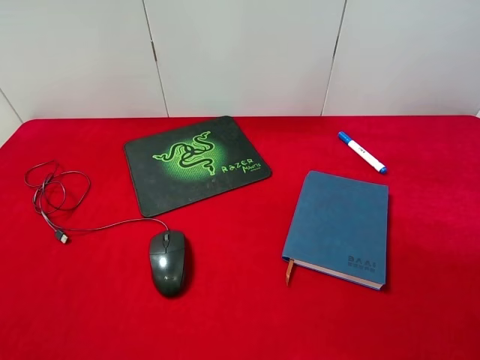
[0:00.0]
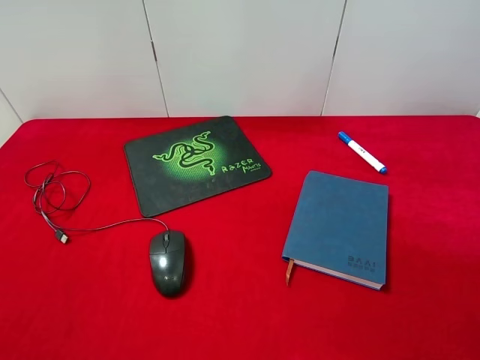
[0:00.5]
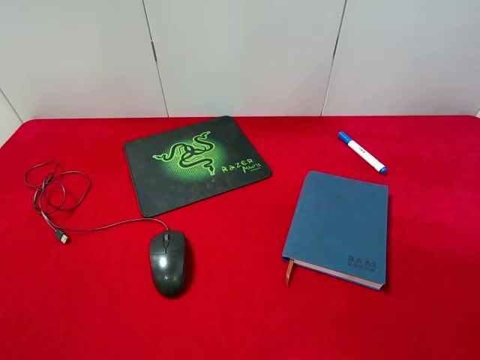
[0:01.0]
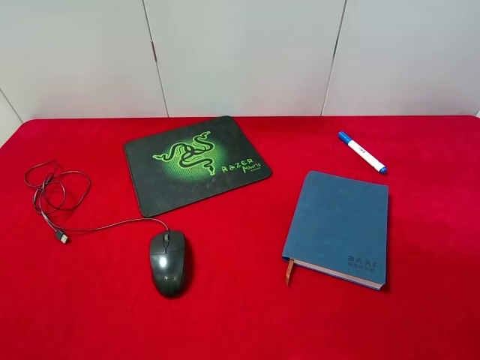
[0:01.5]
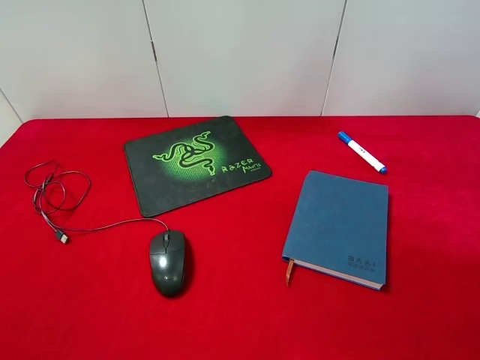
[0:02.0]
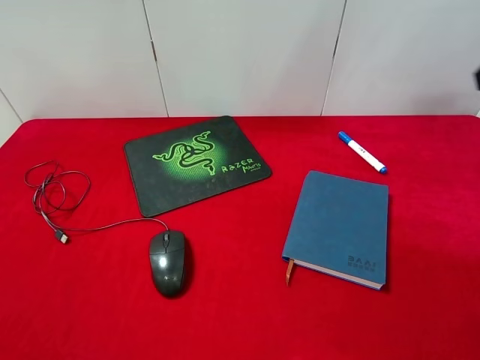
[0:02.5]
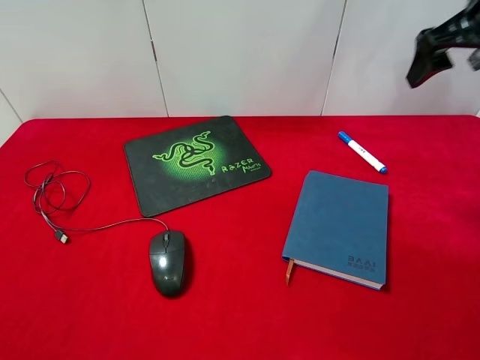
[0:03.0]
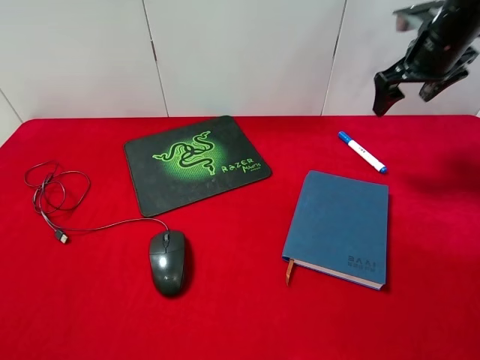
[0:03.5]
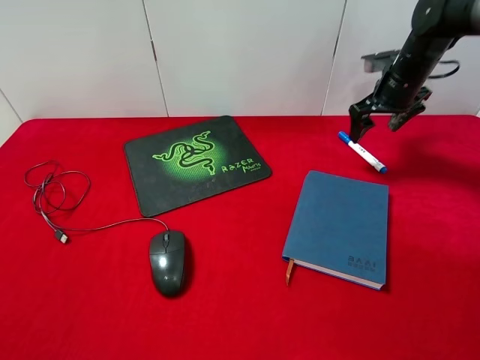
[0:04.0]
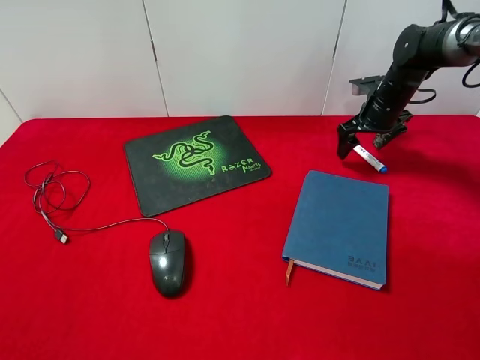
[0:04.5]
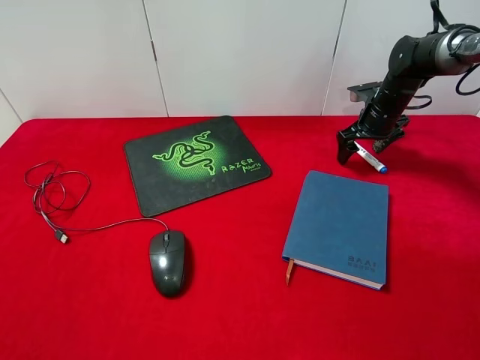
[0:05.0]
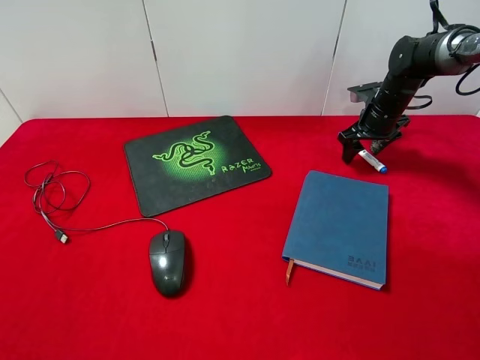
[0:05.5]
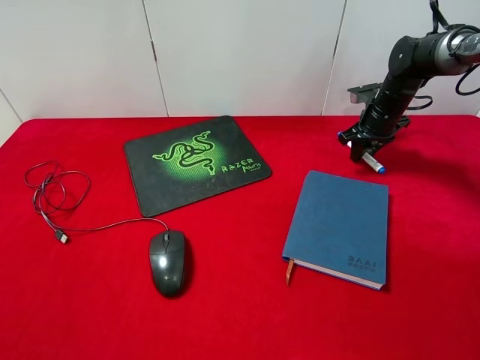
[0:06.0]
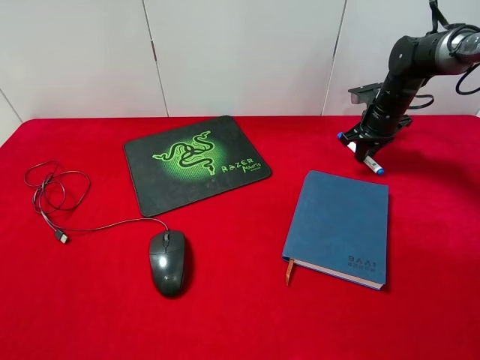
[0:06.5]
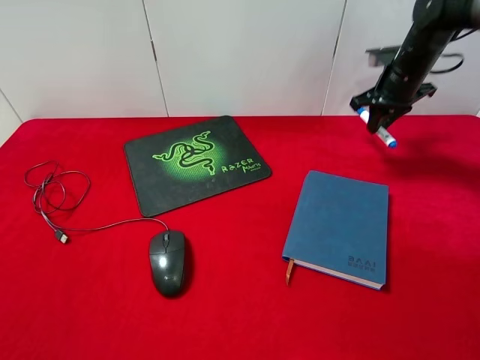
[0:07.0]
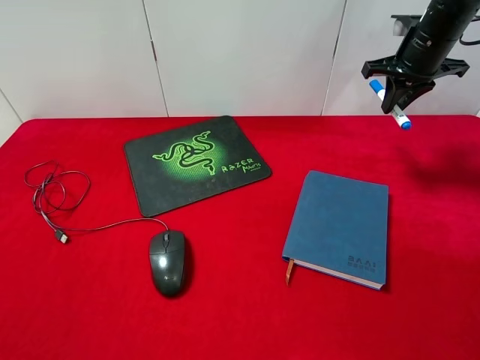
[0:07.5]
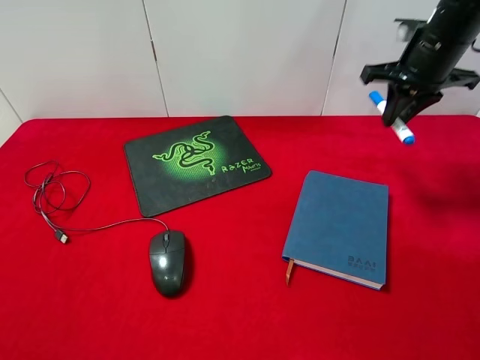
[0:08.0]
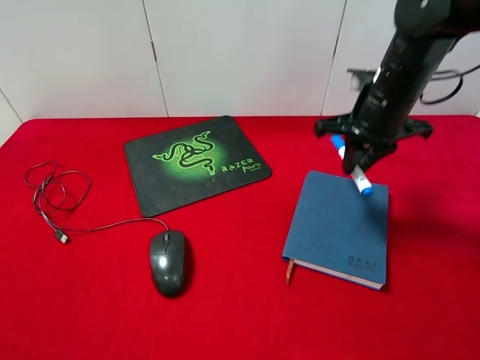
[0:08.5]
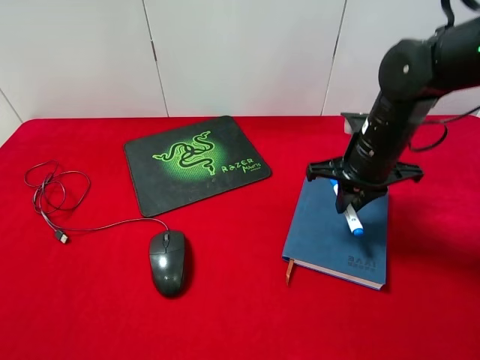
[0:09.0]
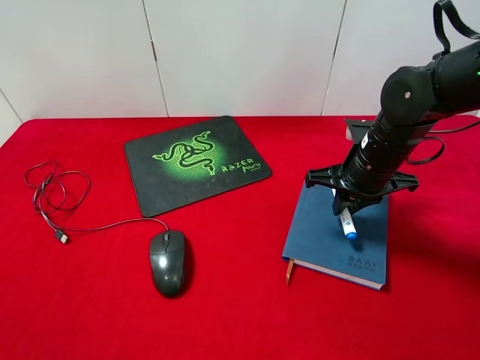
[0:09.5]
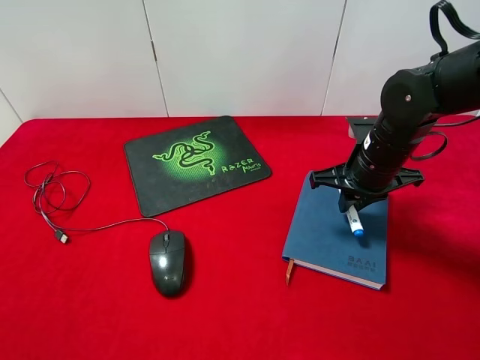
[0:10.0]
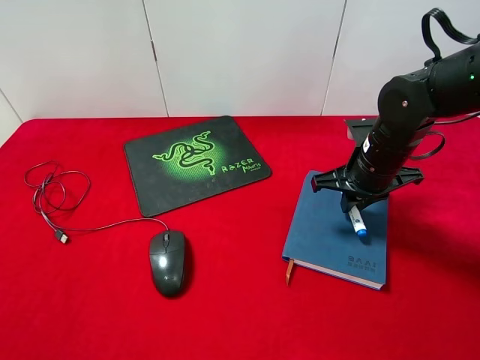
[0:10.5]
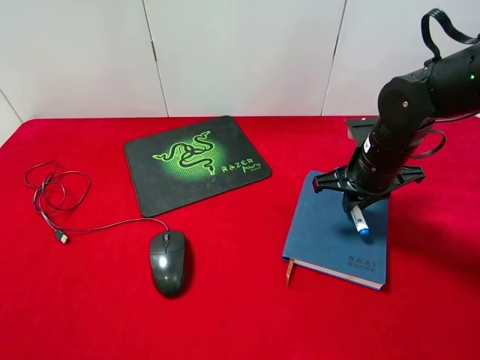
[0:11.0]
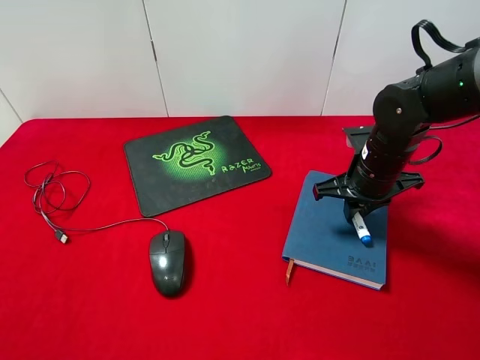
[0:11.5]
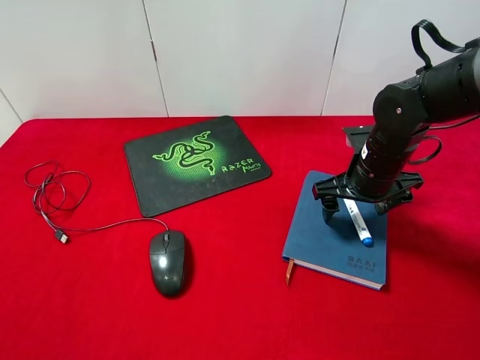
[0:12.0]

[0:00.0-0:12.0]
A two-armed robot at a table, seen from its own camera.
Step, 0:00.0 to 0:07.0: Pick up the marker pen with right gripper.
0:02.0 to 0:04.0: The right gripper moves forward and downward, about 40 cm.
0:04.0 to 0:06.0: The right gripper is displaced downward by some 5 cm, and closes up.
0:06.0 to 0:08.0: The right gripper moves upward and backward, roughly 20 cm.
0:08.0 to 0:10.0: The right gripper shifts some 15 cm downward, backward and to the left.
0:10.0 to 0:12.0: The right gripper opens.

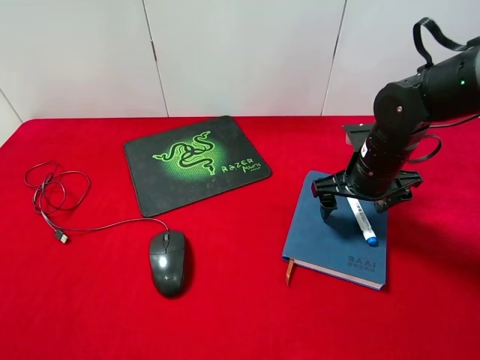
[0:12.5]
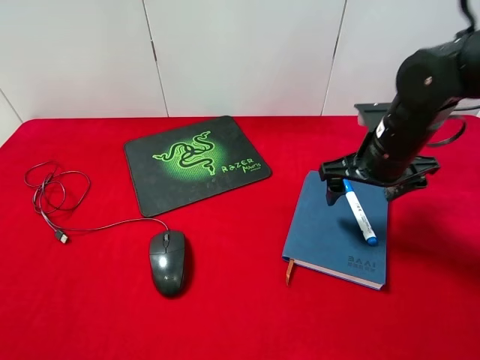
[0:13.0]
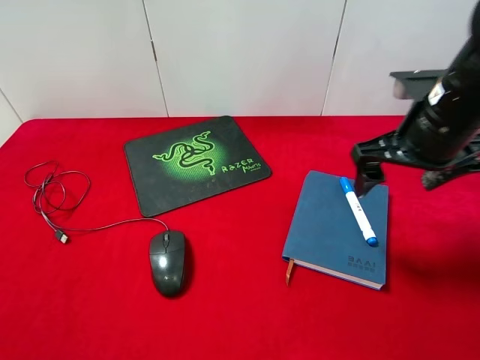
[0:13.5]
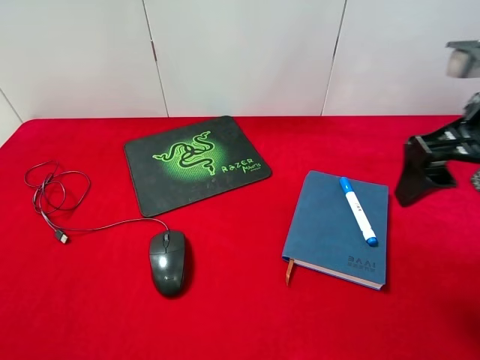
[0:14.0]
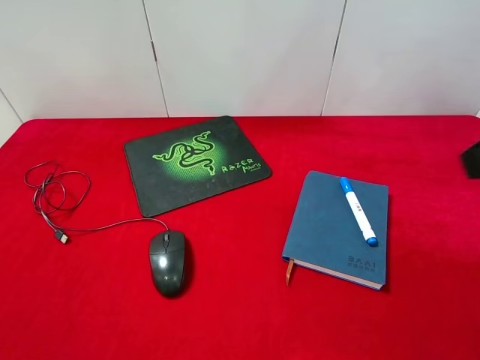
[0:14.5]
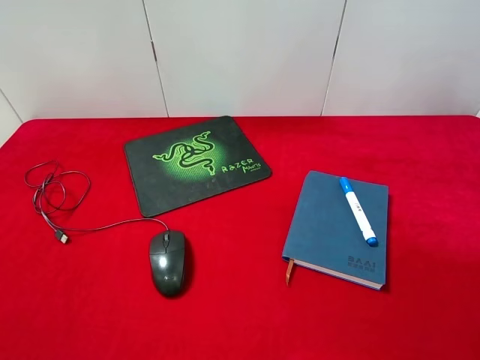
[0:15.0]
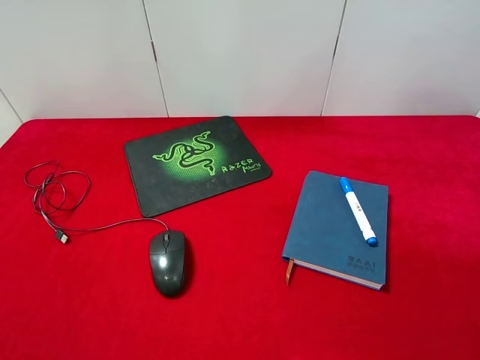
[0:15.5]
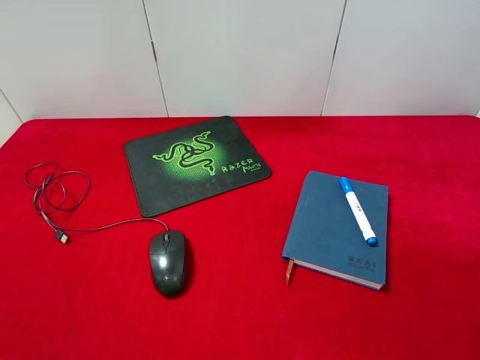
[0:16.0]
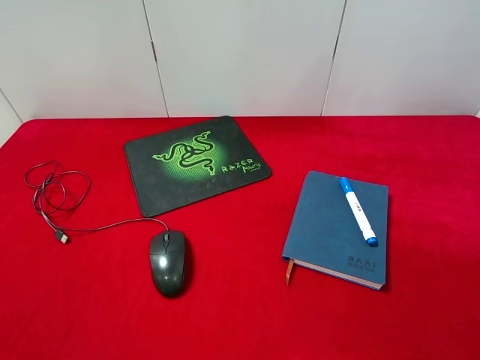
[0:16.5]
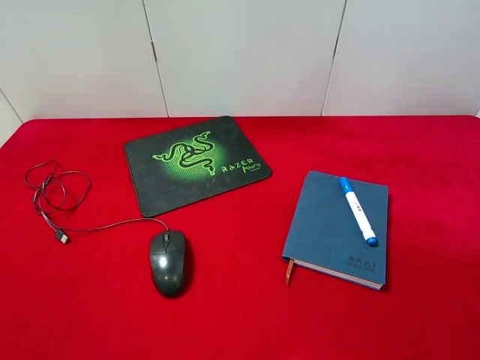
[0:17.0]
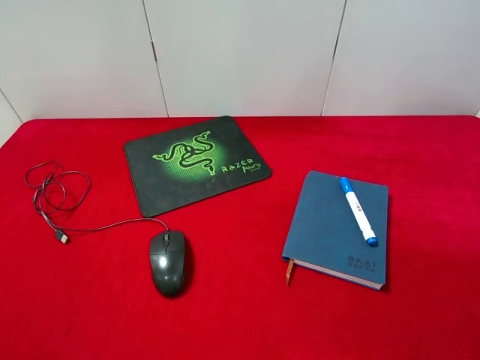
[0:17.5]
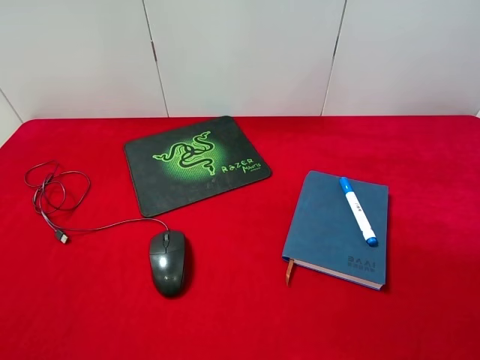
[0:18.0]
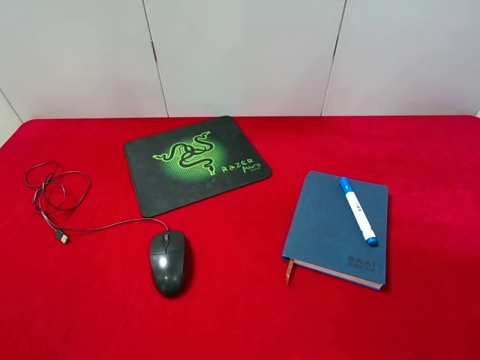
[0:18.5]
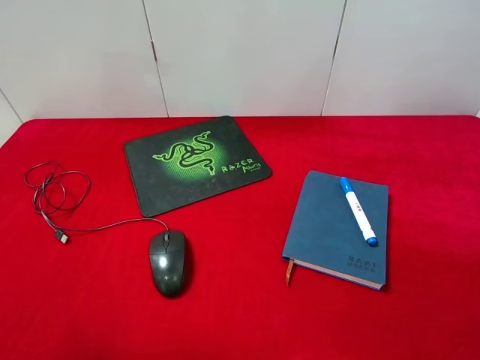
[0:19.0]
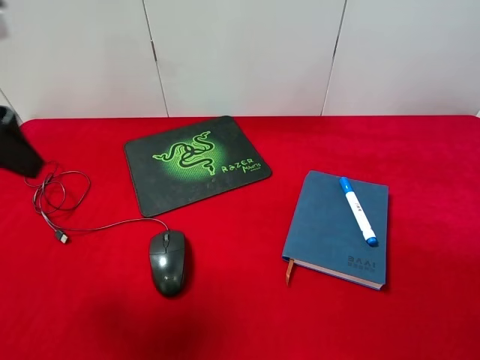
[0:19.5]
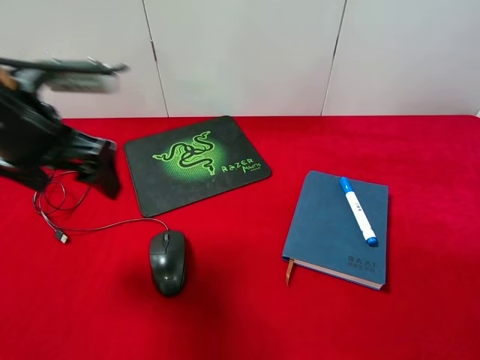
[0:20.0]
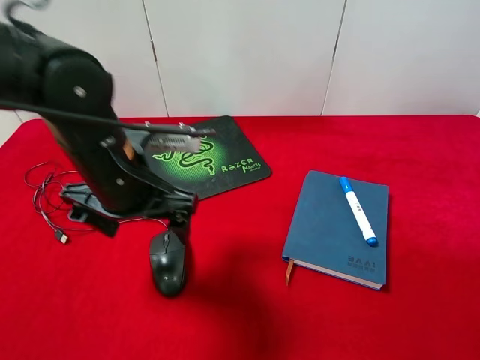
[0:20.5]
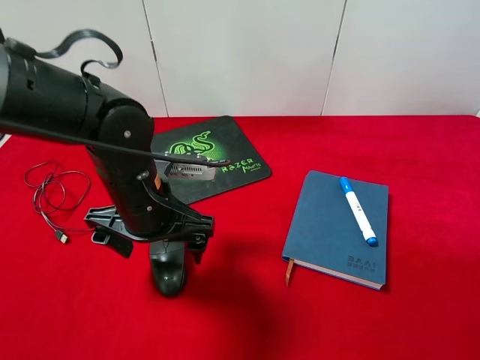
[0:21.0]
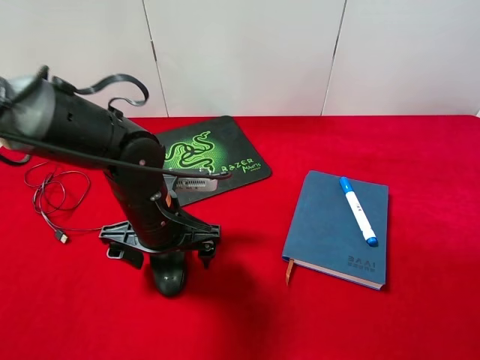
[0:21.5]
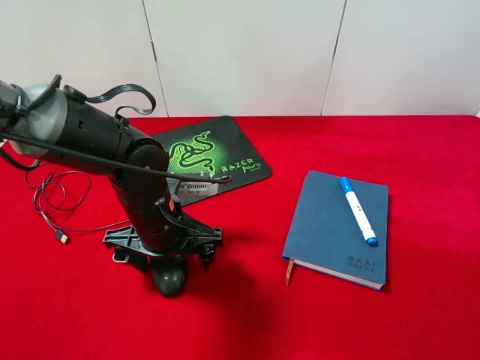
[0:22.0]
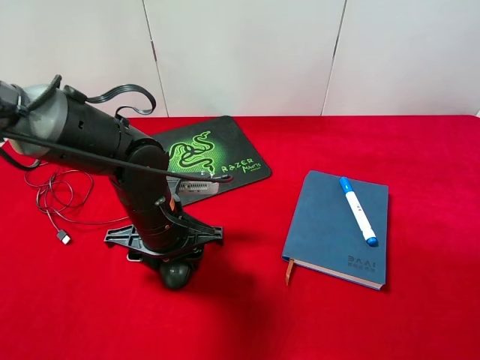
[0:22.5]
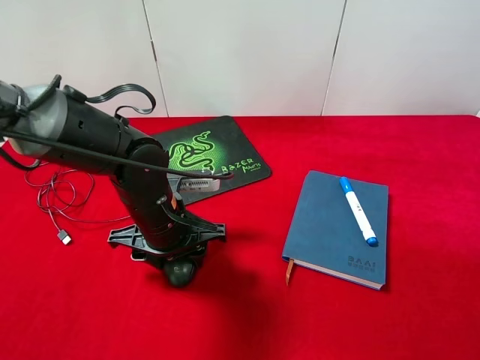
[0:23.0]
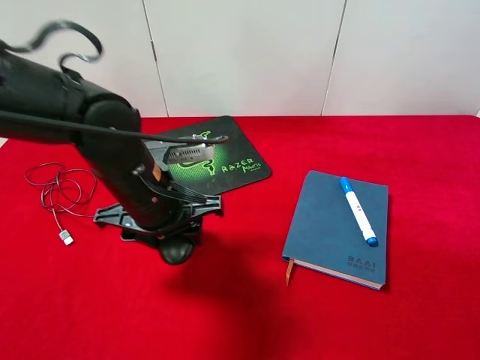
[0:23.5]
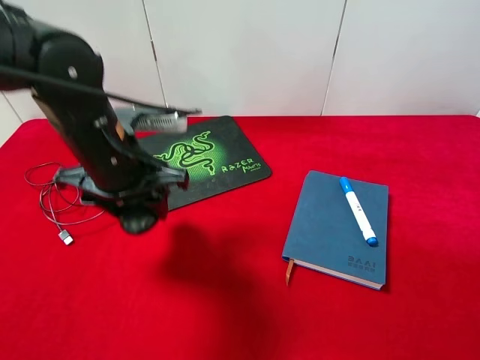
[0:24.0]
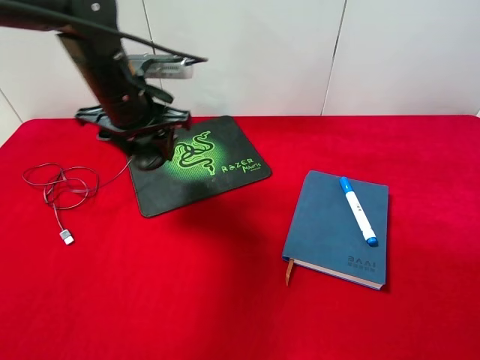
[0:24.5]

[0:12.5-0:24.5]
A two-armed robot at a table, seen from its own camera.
Step, 0:13.0 to 0:23.5: Pick up the mouse with left gripper.
0:12.5 to 0:14.5: The right gripper shifts approximately 30 cm upward and backward.
0:18.5 to 0:20.5: The left gripper is displaced to the right, forward and downward by approximately 30 cm.
0:20.5 to 0:22.5: The left gripper moves downward, approximately 10 cm, and closes its fingers.
0:22.5 to 0:24.5: The left gripper heads upward and forward, covering about 15 cm.

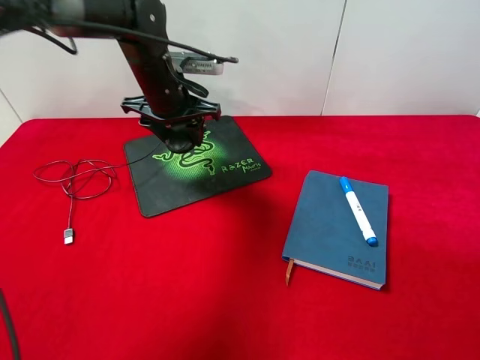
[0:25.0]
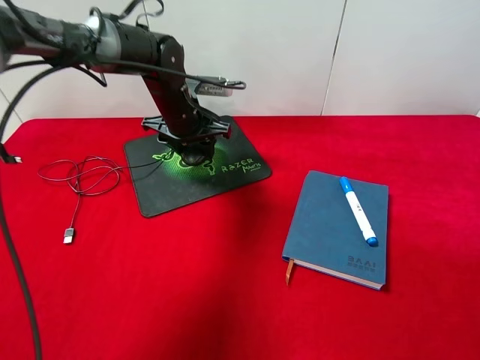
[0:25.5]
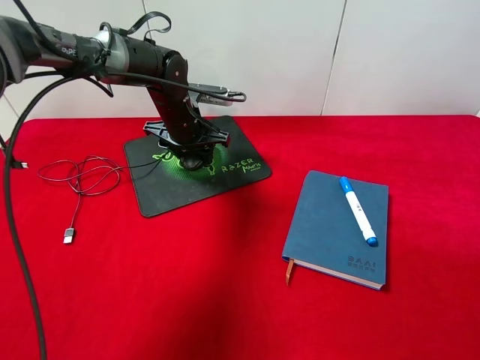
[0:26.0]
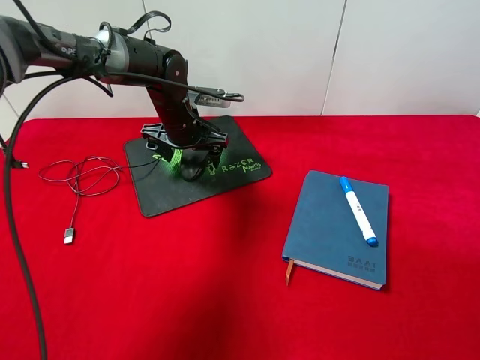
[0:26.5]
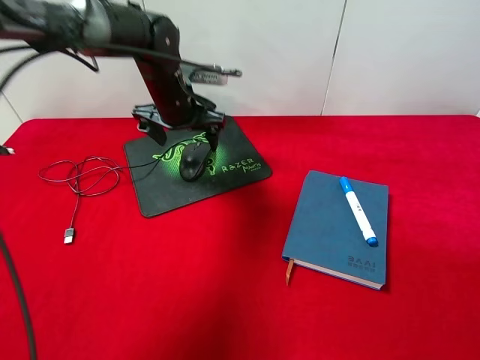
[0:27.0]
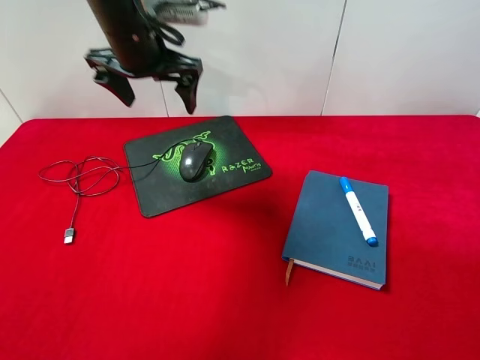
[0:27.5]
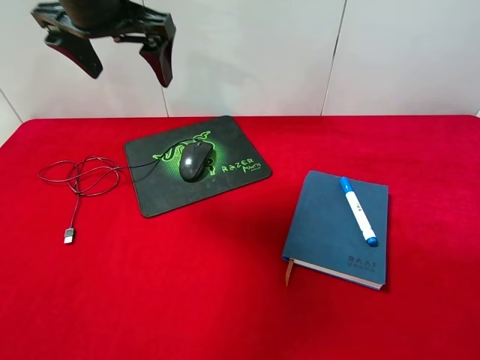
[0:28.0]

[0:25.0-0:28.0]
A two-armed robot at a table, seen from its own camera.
0:25.0 to 0:26.5: The left gripper is displaced downward by approximately 5 cm, and opens its fingers.
0:26.5 to 0:28.0: The left gripper travels upward and backward by roughly 25 cm.
